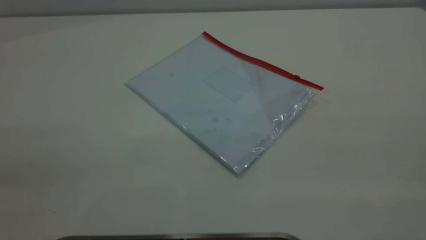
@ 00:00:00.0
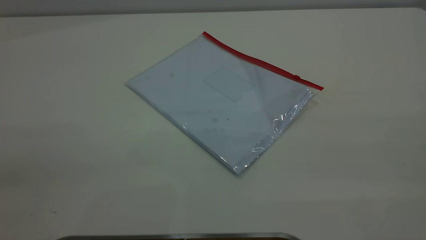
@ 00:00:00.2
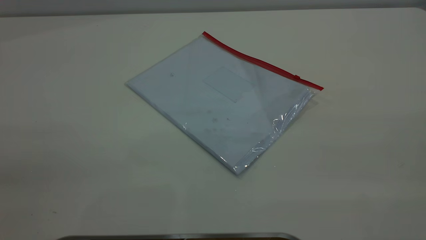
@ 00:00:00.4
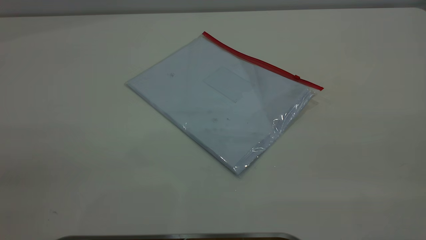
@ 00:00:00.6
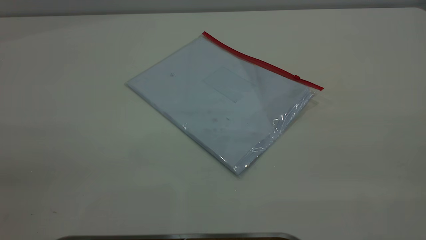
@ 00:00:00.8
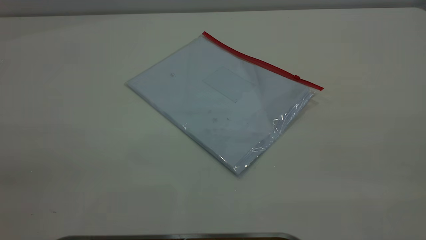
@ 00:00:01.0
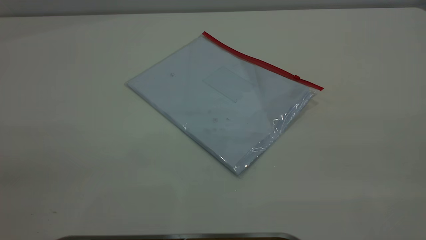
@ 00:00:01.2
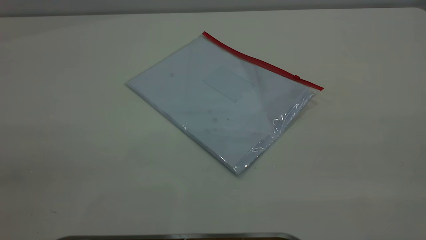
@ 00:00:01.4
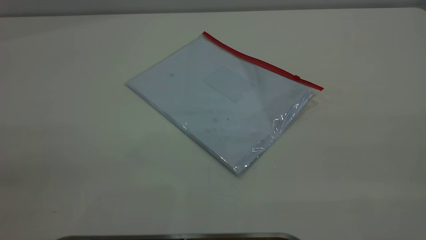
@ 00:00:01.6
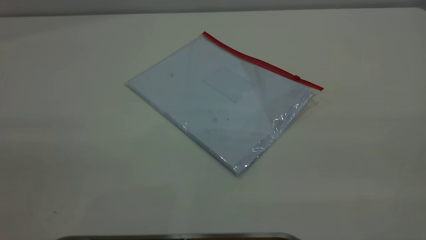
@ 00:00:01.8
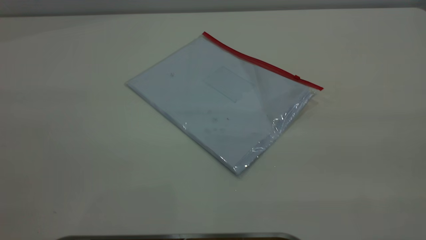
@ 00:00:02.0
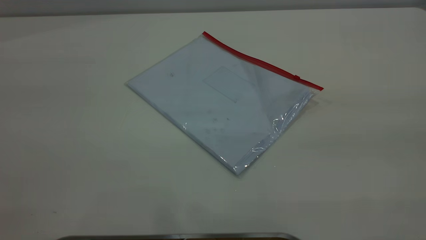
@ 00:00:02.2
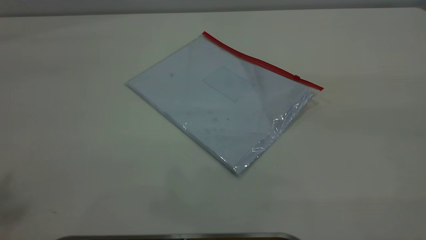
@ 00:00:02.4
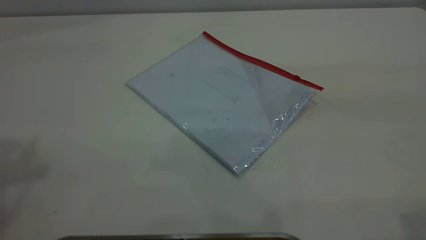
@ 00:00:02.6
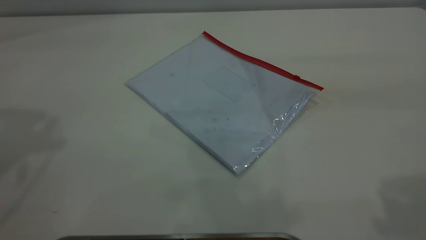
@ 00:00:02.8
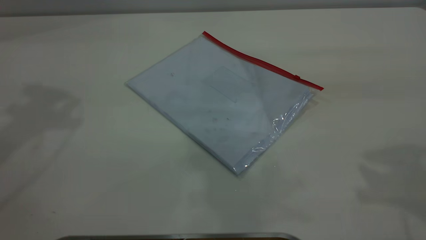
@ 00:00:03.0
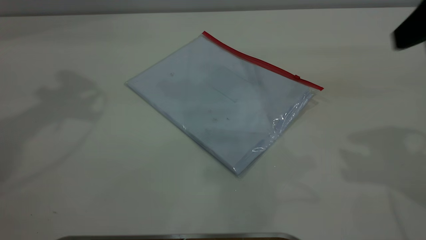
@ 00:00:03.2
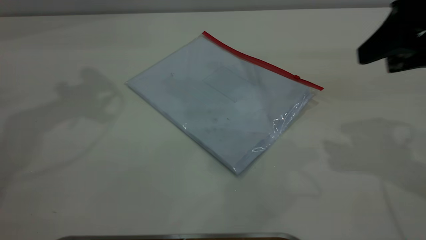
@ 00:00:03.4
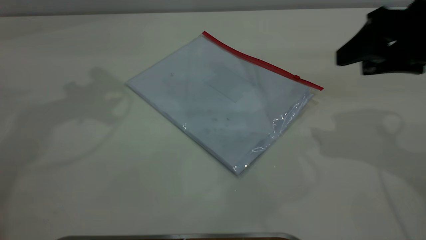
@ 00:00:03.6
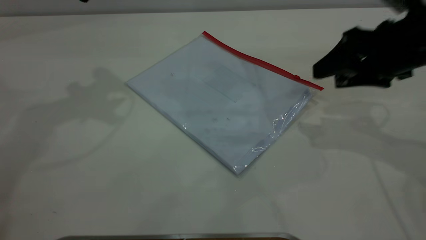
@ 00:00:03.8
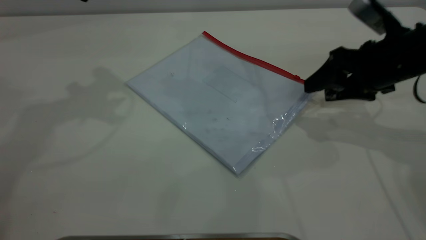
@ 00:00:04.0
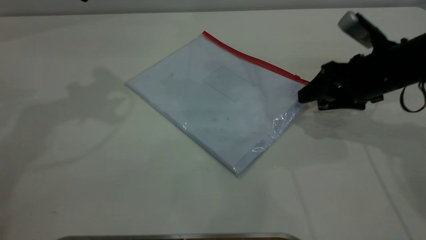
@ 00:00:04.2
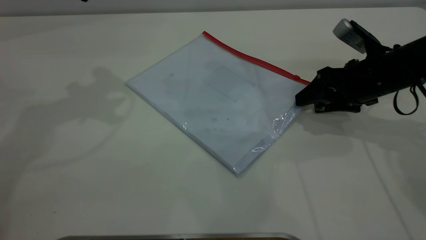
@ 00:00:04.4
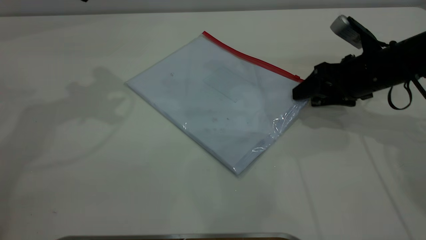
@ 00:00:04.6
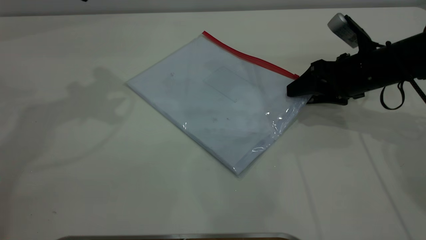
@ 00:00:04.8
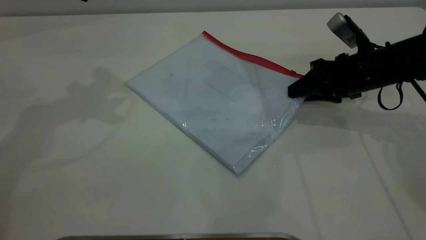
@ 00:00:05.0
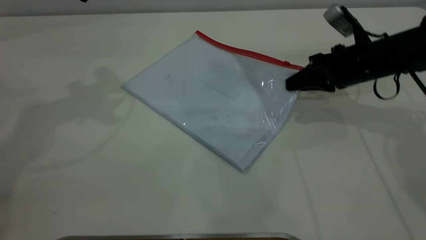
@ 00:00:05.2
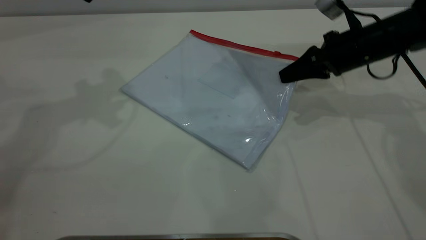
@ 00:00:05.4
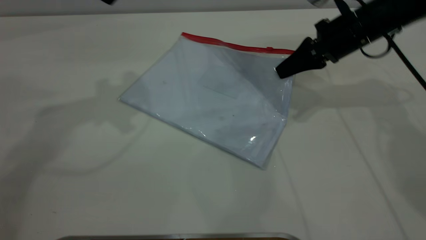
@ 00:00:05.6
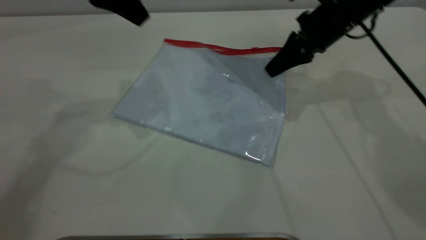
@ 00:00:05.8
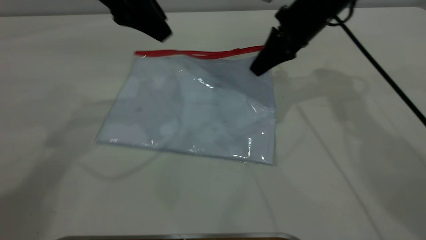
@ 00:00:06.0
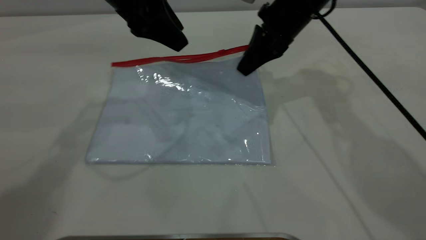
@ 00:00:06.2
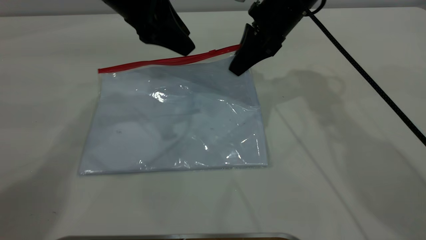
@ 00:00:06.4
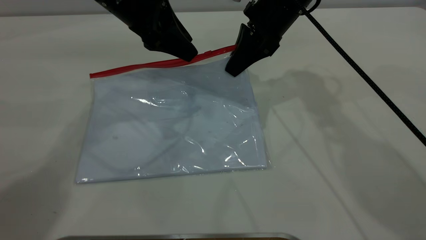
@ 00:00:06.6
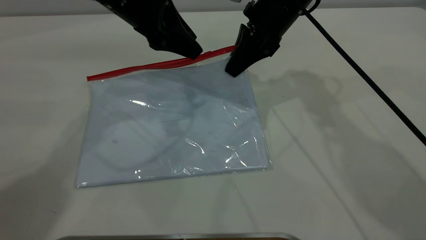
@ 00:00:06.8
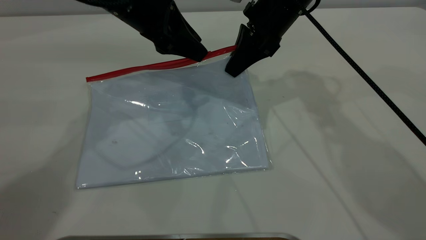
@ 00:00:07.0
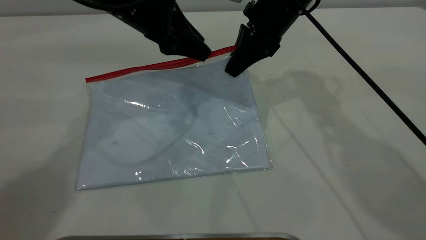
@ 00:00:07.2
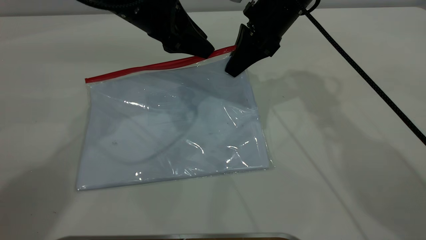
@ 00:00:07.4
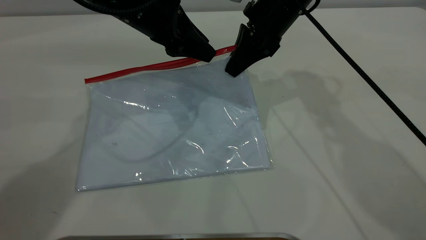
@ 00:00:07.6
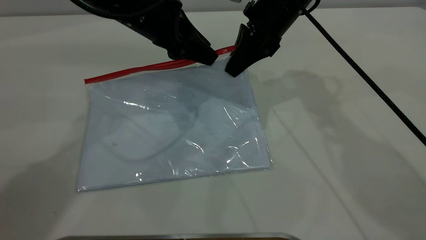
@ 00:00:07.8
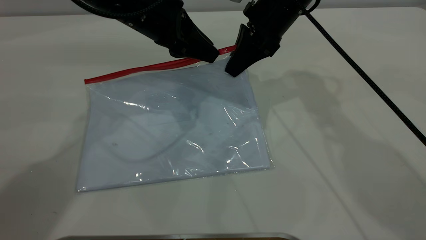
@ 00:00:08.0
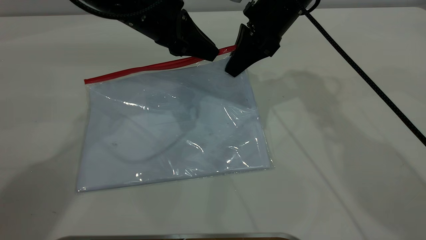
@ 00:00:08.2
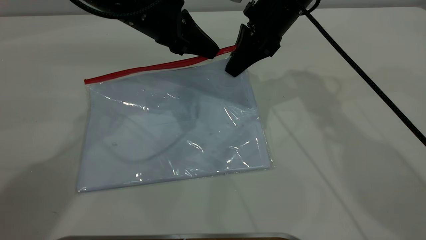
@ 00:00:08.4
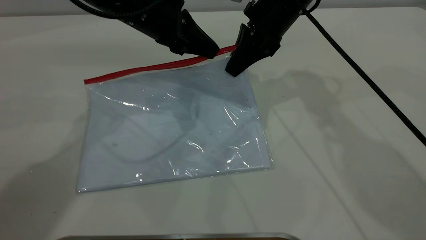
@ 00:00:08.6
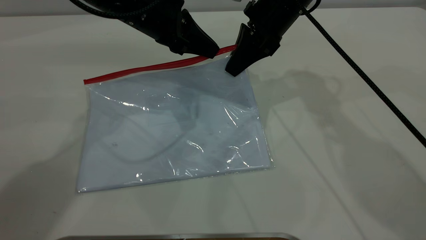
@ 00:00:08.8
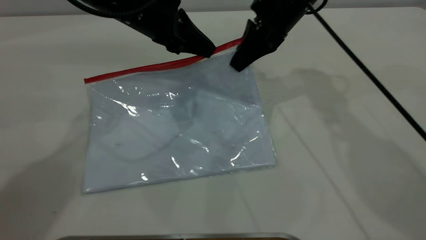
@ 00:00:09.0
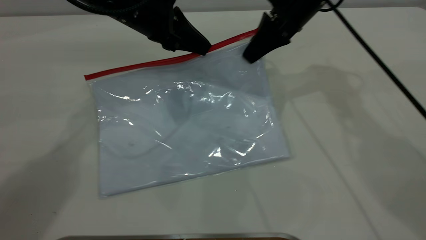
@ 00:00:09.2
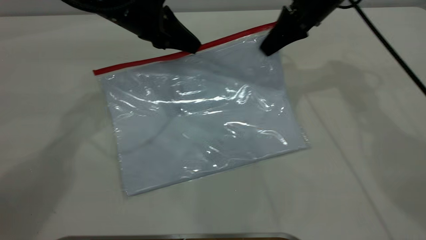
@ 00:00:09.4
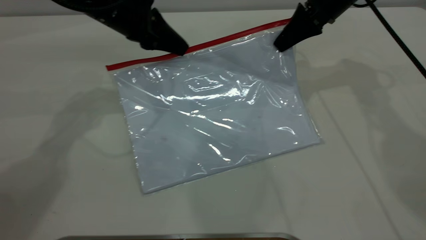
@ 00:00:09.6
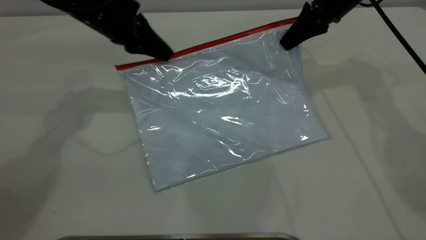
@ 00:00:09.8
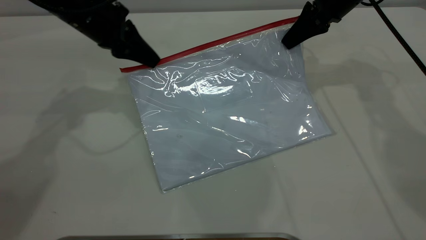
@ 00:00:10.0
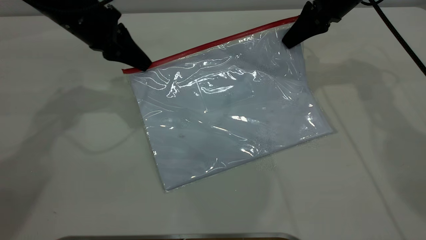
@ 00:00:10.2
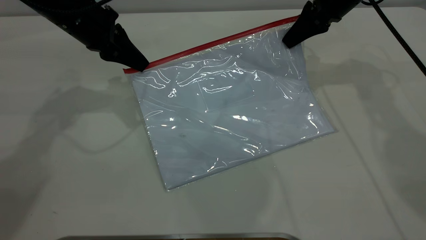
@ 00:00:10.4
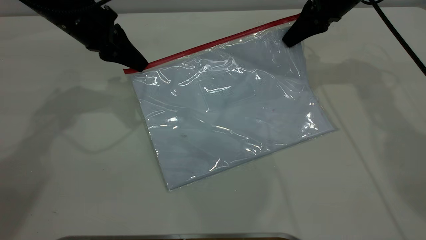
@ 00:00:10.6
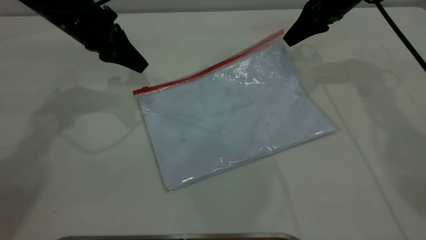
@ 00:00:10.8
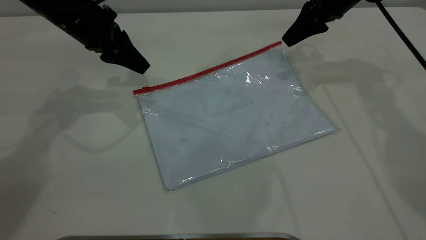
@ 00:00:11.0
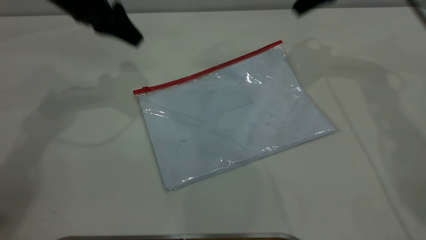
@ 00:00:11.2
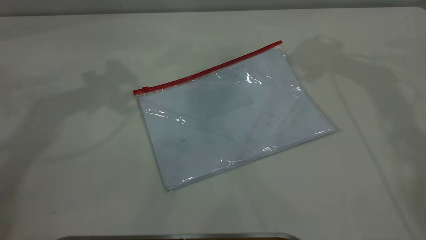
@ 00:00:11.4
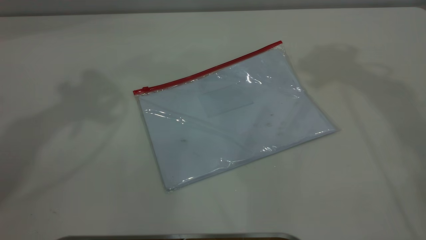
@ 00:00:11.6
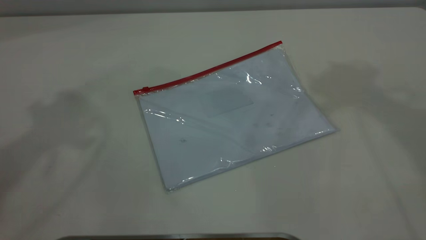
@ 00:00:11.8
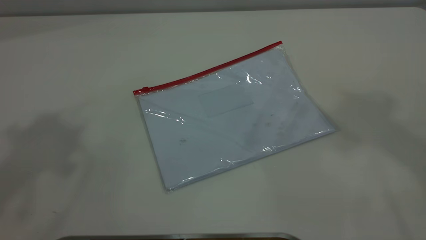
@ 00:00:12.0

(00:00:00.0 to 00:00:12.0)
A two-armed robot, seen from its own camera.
Step, 00:00:00.0 - 00:00:06.2: Pick up the transparent plastic bag with the right gripper.
Step, 00:00:06.4 - 00:00:10.6: Pulling up the zipper on the transparent plastic bag with the left gripper to close it.
Step, 00:00:10.8 - 00:00:11.6: Place the transparent plastic bag.
00:00:00.0 - 00:00:01.6: The two grippers keep their place.
00:00:03.0 - 00:00:04.4: The right gripper shifts roughly 30 cm downward and forward.
00:00:04.4 - 00:00:06.0: The right gripper is displaced to the left, forward and upward by some 15 cm, and closes its fingers; the left gripper moves to the right and downward, roughly 10 cm.
00:00:06.0 - 00:00:07.6: The left gripper shifts approximately 5 cm downward.
00:00:07.6 - 00:00:09.0: The left gripper closes its fingers.
00:00:09.0 - 00:00:10.4: The left gripper travels to the left by some 10 cm; the right gripper heads to the right, covering some 10 cm.
00:00:10.4 - 00:00:12.0: The two grippers go some 40 cm upward and backward. The left gripper opens up; the right gripper opens.
